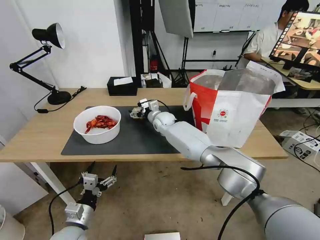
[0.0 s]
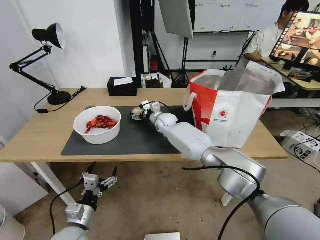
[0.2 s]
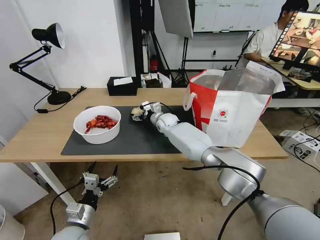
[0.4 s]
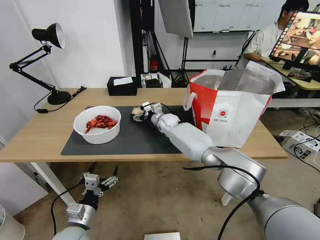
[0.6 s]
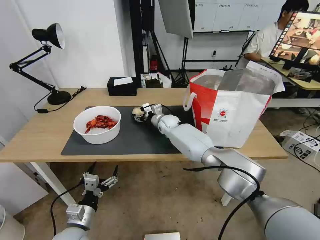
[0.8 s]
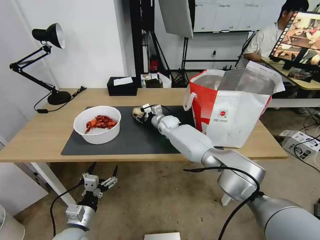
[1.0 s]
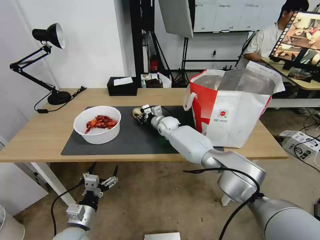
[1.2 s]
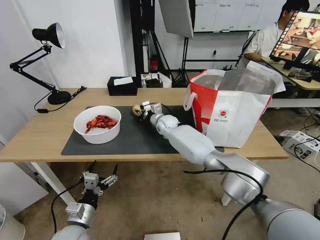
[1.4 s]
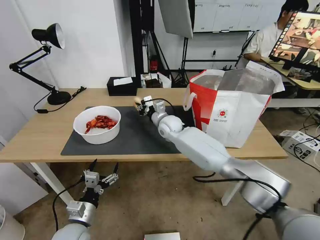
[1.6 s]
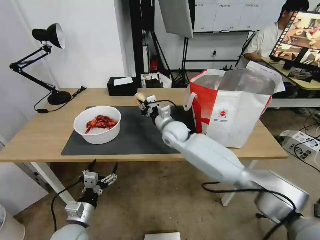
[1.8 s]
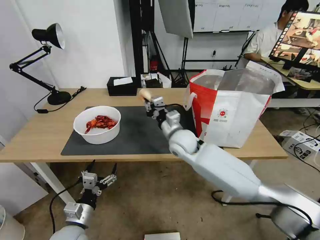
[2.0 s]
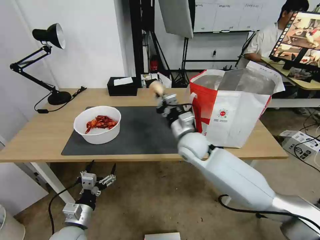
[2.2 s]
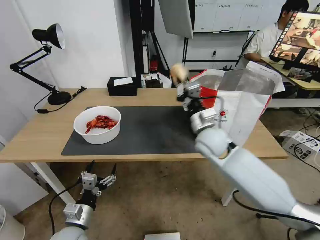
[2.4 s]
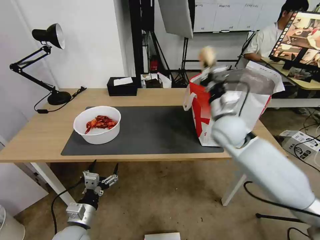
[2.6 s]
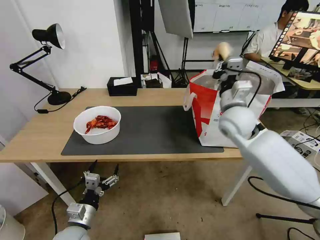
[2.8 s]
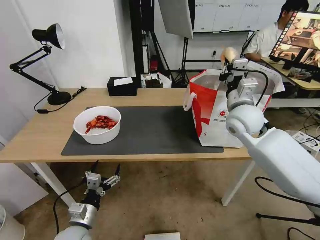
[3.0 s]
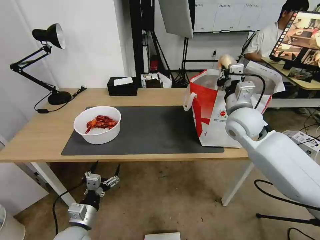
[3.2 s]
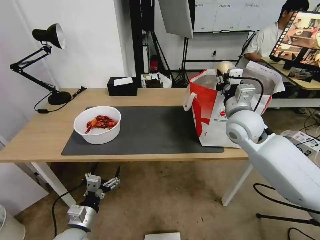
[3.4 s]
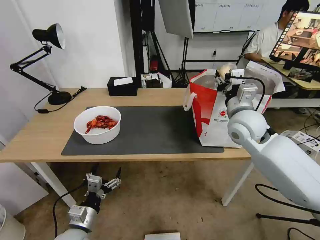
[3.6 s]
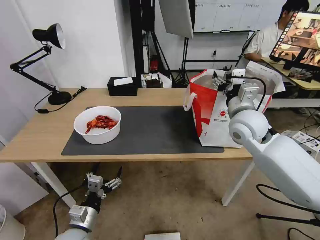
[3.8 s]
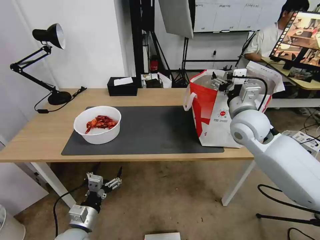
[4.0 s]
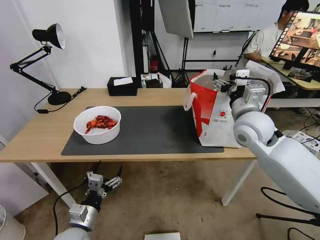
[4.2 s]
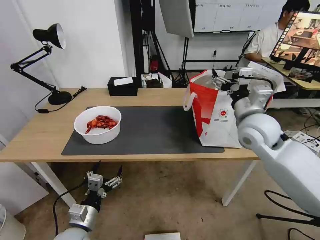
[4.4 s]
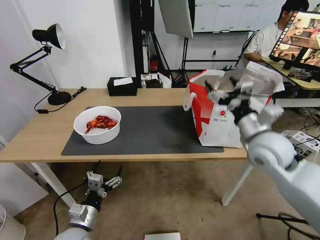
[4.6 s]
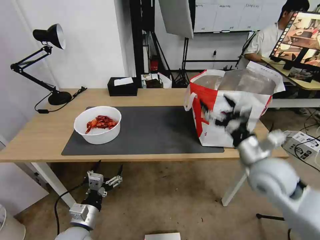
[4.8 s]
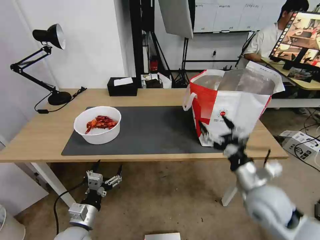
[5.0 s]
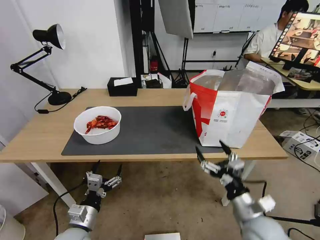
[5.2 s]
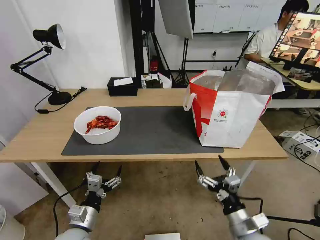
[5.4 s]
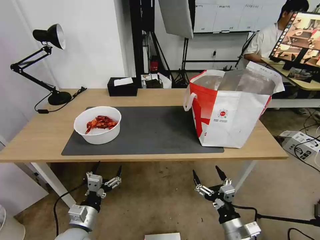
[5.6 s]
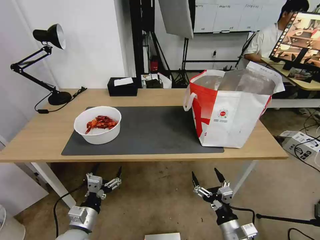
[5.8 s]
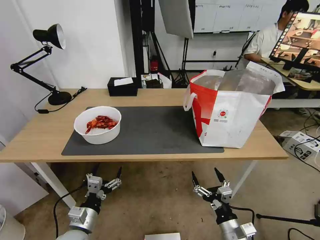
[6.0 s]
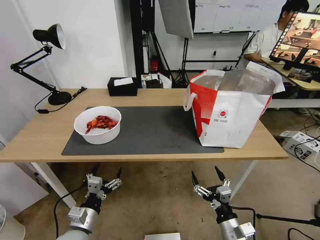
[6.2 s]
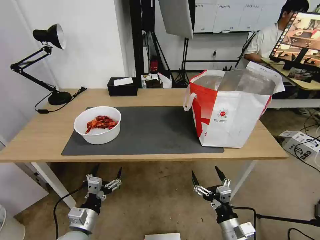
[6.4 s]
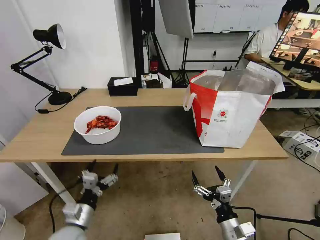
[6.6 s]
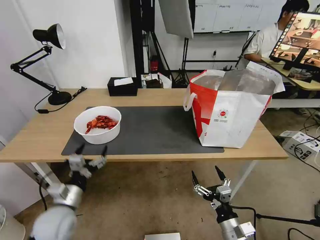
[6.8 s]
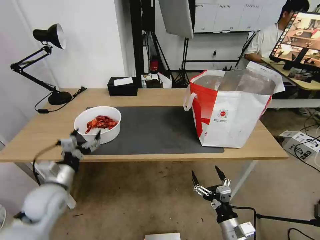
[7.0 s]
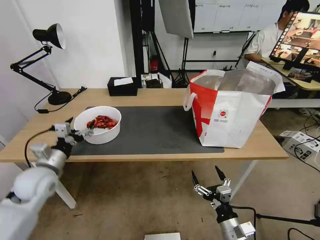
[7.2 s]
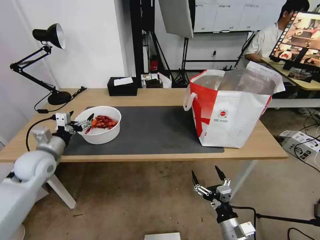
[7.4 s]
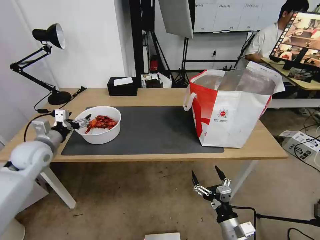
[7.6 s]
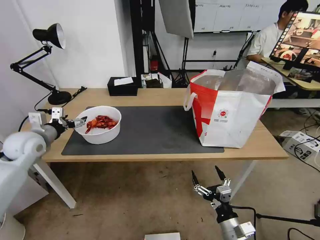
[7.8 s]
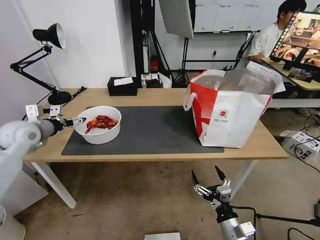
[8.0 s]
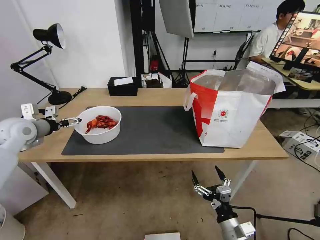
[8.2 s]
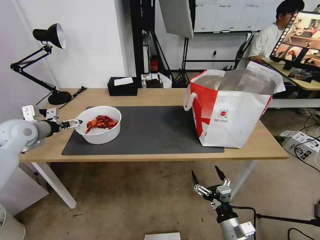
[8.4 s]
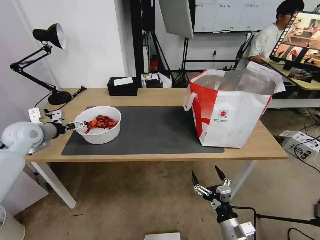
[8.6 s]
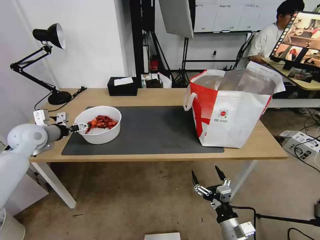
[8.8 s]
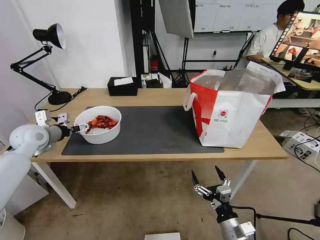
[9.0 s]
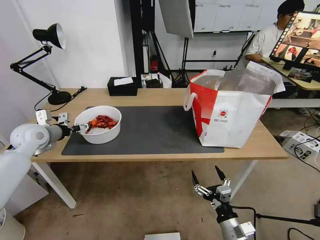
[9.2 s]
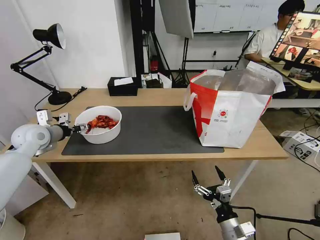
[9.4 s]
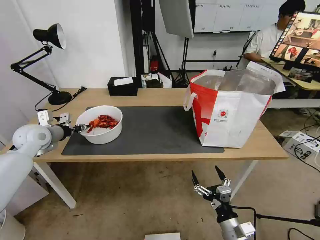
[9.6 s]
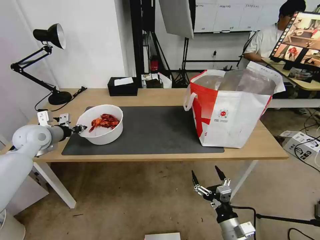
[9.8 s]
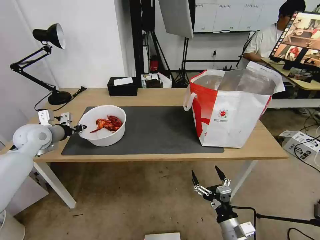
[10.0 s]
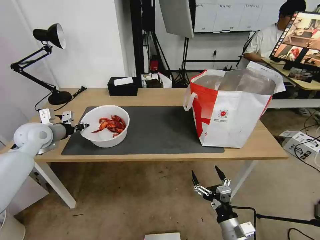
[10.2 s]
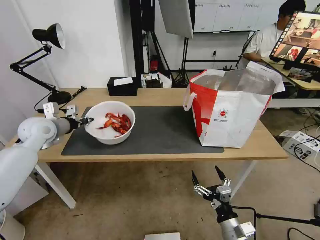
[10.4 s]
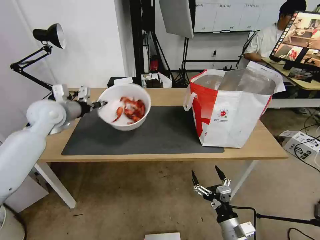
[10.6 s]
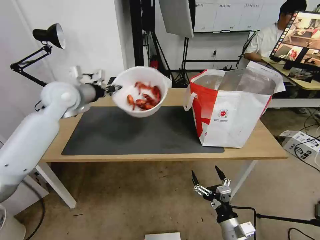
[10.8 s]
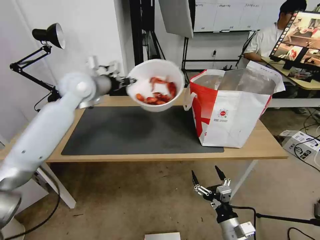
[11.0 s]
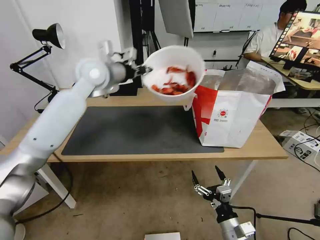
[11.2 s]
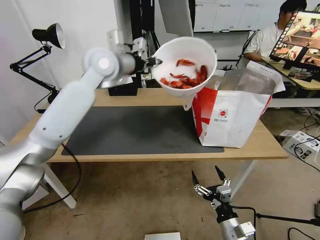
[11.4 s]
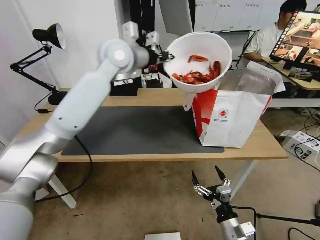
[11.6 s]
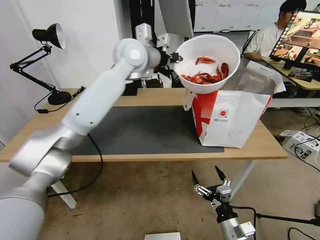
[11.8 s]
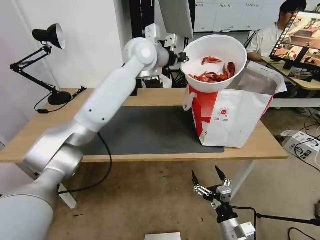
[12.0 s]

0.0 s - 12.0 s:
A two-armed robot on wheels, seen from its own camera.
Task of the whole recording: Pick up the trash from the table and place it into the takeout bag.
0.0 s - 1.6 s: The right gripper travels backward by about 5 cm, and closes.
1.6 s - 3.0 s: The right gripper is displaced to the right, upward and backward by roughly 25 cm.
3.0 s - 4.4 s: The right gripper shifts by some 5 cm, and opens its fingers.
4.4 s - 6.0 s: The right gripper travels downward and backward by about 40 cm.
6.0 s - 7.6 s: The left gripper travels forward, upward and to the left by about 30 cm.
7.6 s - 9.0 s: The left gripper moves some 5 cm.
9.0 s - 10.4 s: The left gripper closes up.
10.4 s - 12.0 s: The left gripper travels to the right and upward by some 40 cm.

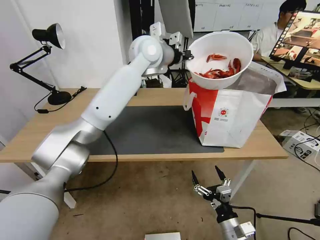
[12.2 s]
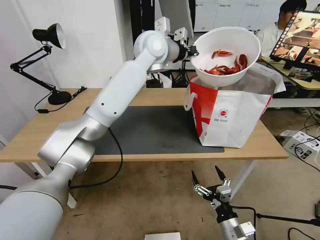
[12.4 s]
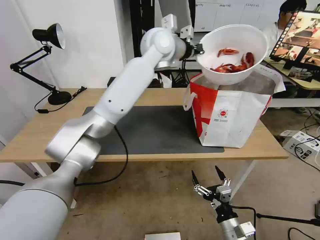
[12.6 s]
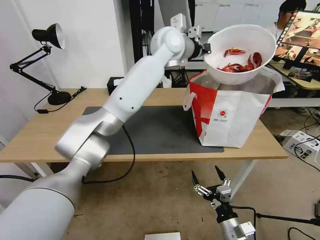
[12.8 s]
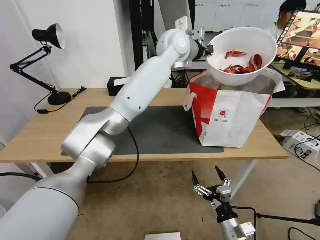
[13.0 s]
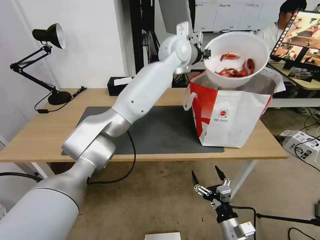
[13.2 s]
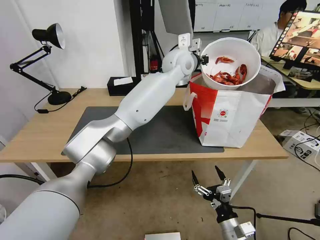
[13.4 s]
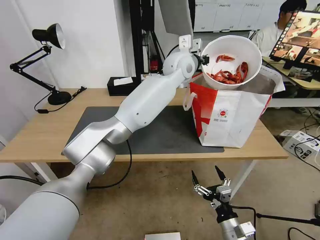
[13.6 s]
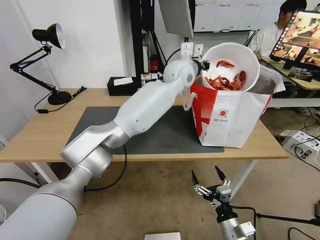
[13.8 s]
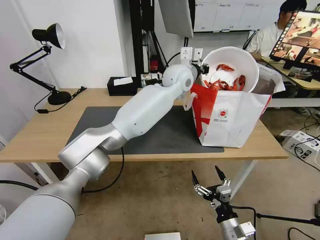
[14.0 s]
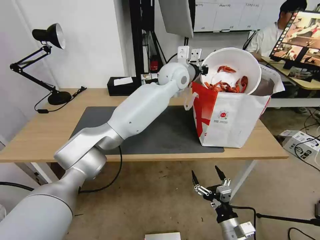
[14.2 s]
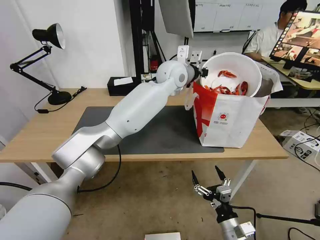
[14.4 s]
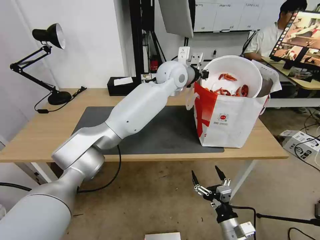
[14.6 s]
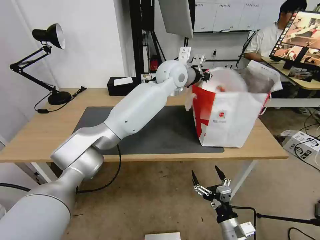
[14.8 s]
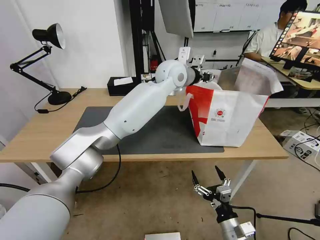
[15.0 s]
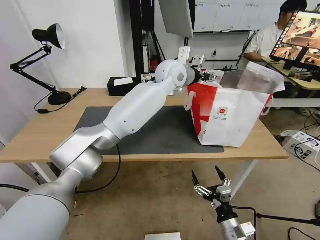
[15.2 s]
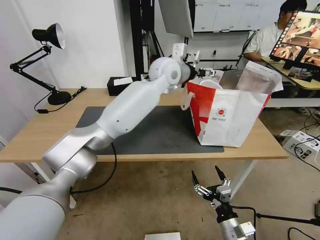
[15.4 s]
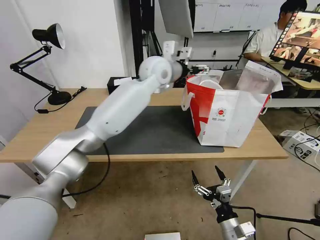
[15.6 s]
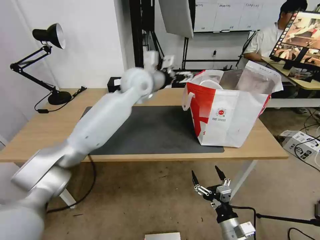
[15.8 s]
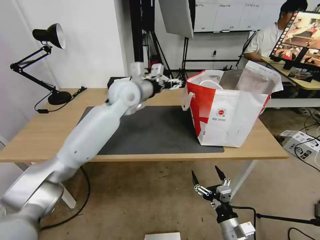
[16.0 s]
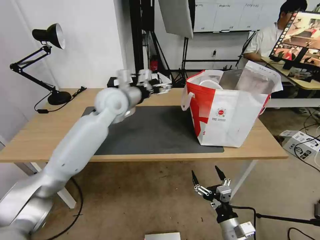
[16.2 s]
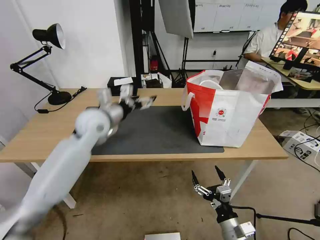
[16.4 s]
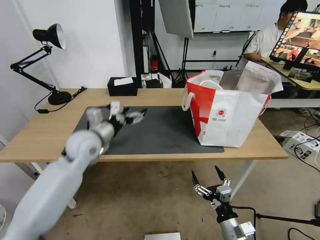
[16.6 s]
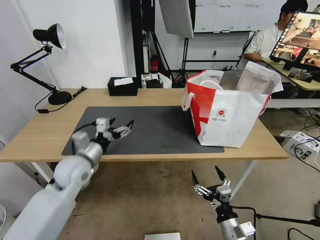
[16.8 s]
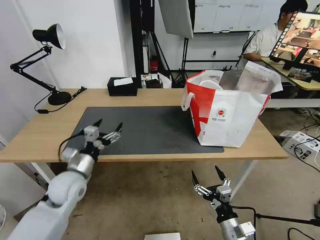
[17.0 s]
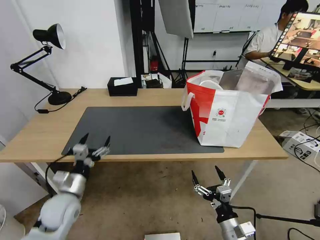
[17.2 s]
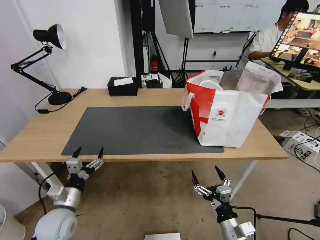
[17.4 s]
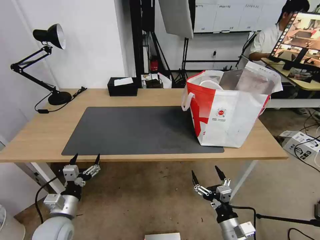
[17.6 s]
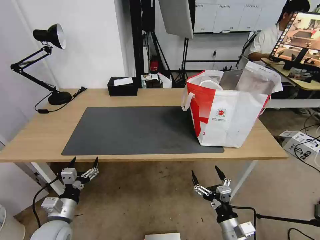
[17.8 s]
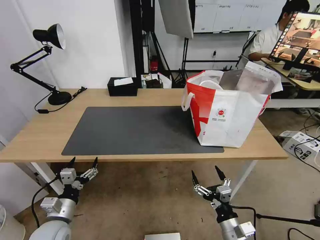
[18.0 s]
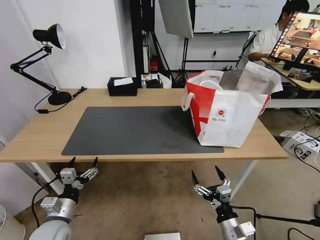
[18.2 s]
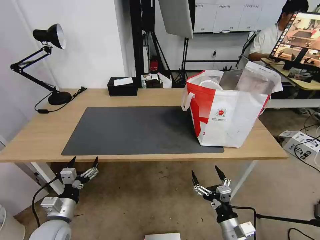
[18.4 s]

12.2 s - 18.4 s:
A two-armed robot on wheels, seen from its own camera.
Task of the whole recording: Pick up the trash from the table and place it into the takeout bag.
12.2 s - 13.8 s: The left gripper moves to the right and downward, some 10 cm.
13.8 s - 15.4 s: The left gripper shifts by approximately 5 cm, and opens.
15.4 s - 16.8 s: The left gripper is displaced to the left, backward and downward by some 40 cm.
16.8 s - 18.4 s: The left gripper goes roughly 20 cm backward, downward and to the left.

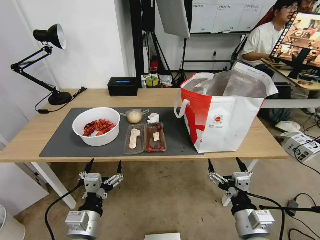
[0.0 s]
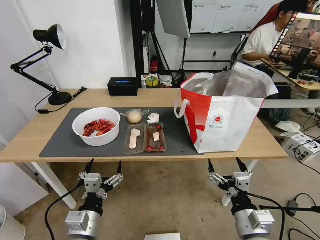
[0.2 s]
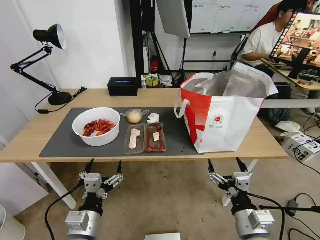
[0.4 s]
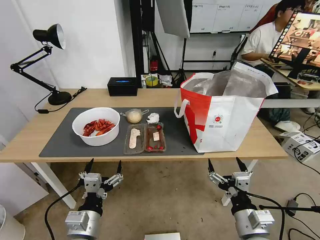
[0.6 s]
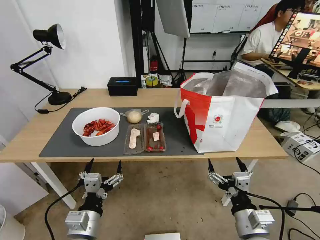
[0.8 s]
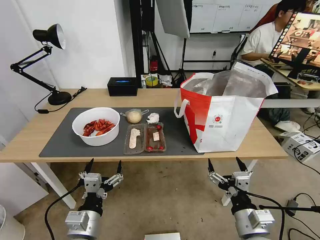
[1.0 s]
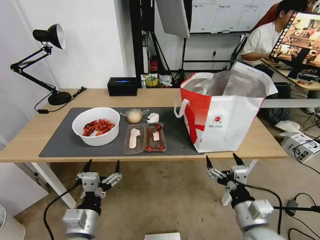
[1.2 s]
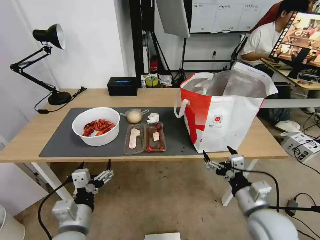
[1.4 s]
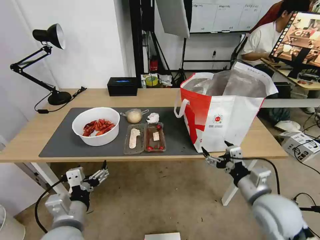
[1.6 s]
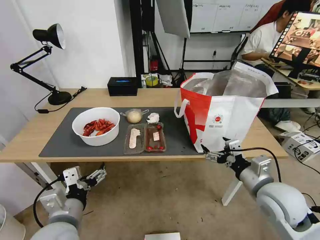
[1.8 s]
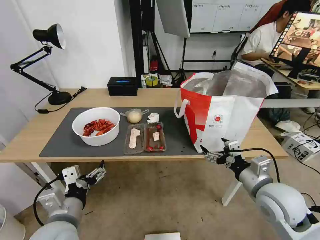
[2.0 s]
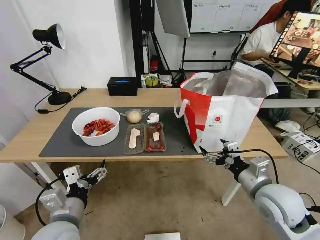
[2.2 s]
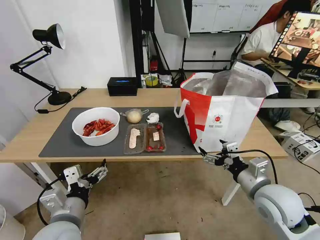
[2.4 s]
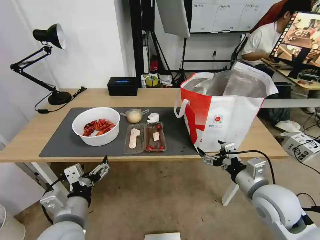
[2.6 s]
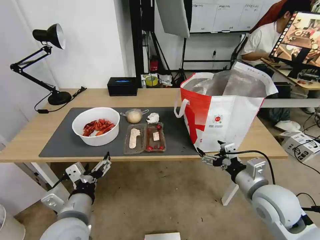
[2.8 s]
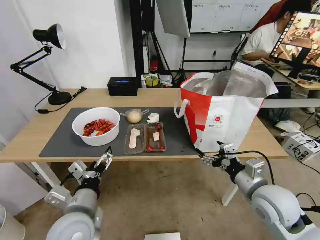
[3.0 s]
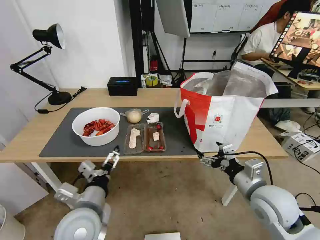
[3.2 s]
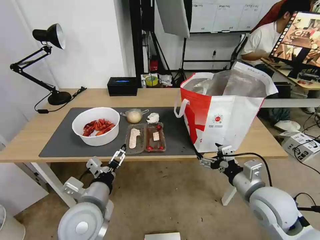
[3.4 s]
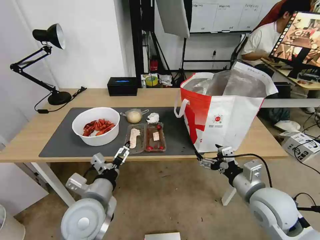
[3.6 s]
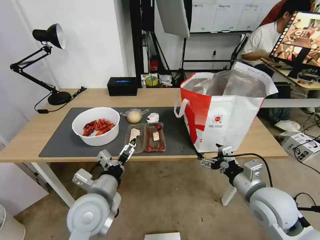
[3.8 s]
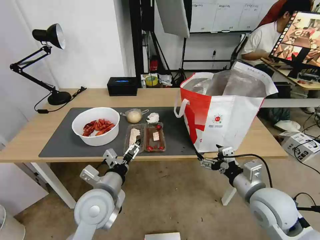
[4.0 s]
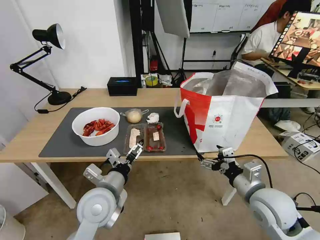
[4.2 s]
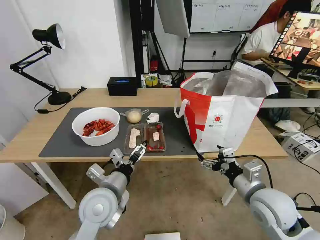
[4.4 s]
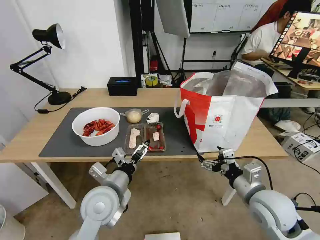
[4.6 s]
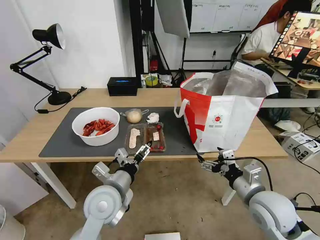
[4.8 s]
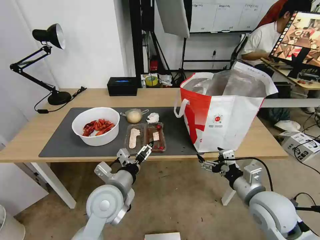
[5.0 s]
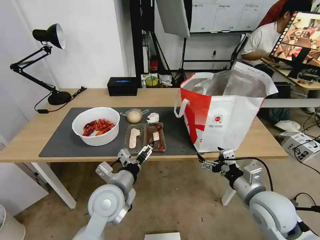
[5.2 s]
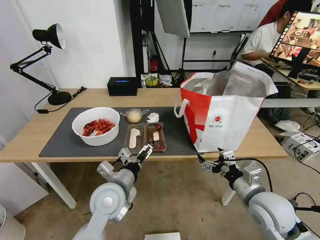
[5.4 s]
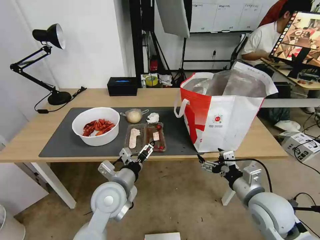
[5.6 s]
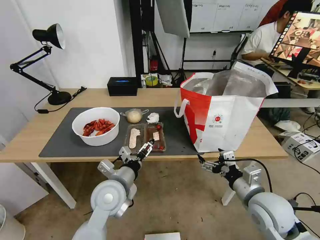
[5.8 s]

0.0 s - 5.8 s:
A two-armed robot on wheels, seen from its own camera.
Task of the whole recording: Pick up the trash from the table and place it into the takeout bag.
1.4 s - 2.8 s: The right gripper travels forward by some 5 cm.
2.8 s - 4.4 s: The left gripper goes some 10 cm forward and to the right.
4.4 s - 5.8 s: There are only small adjustments of the grippers.
